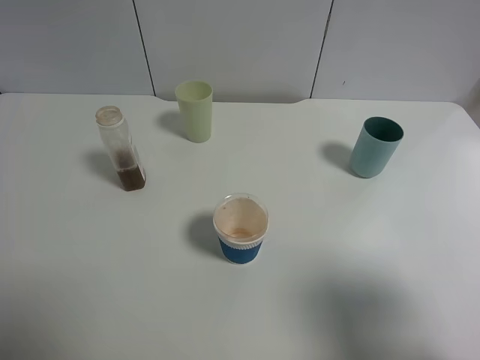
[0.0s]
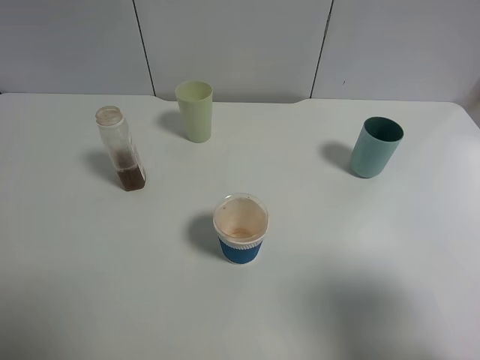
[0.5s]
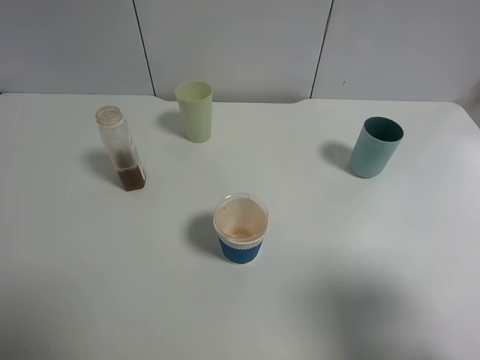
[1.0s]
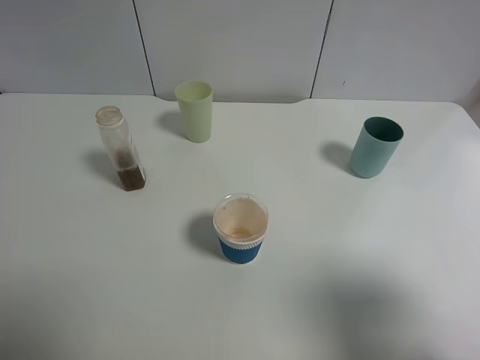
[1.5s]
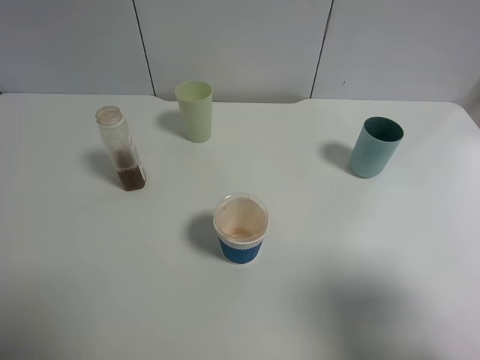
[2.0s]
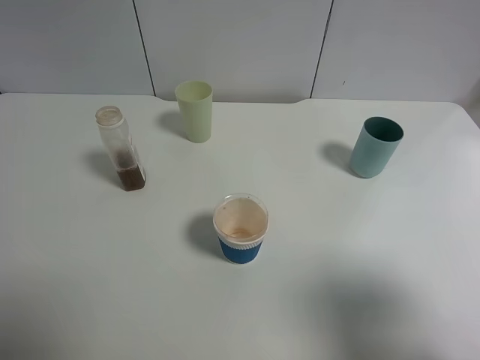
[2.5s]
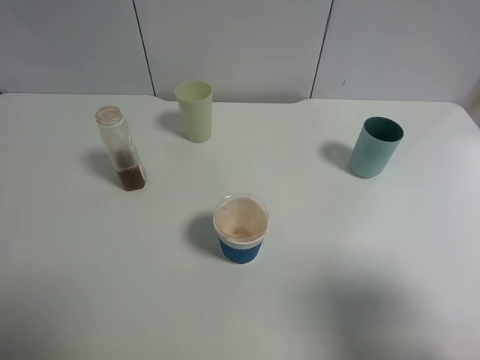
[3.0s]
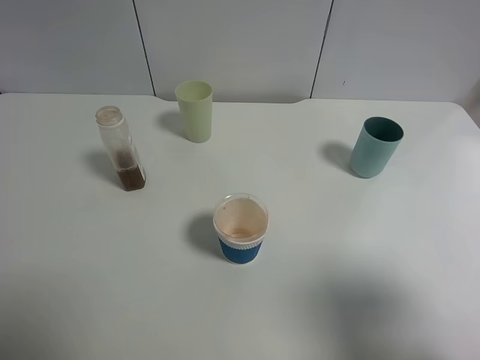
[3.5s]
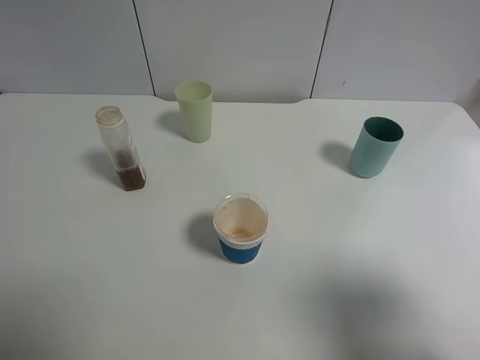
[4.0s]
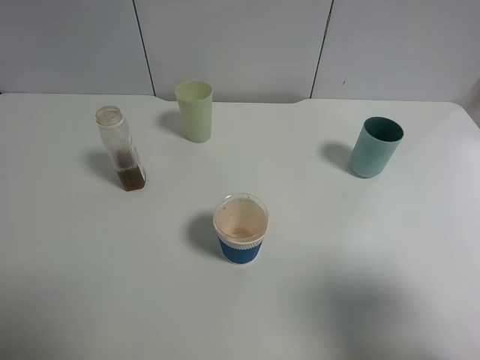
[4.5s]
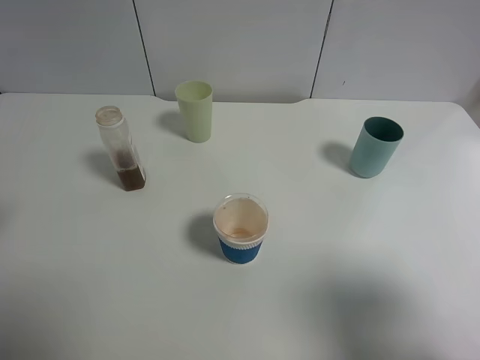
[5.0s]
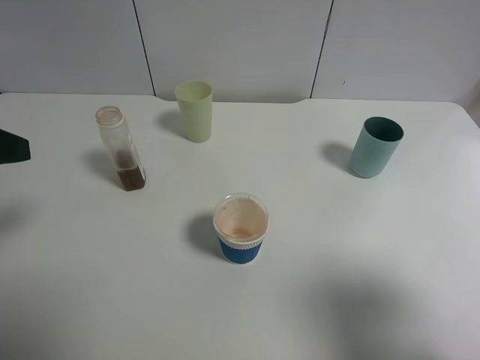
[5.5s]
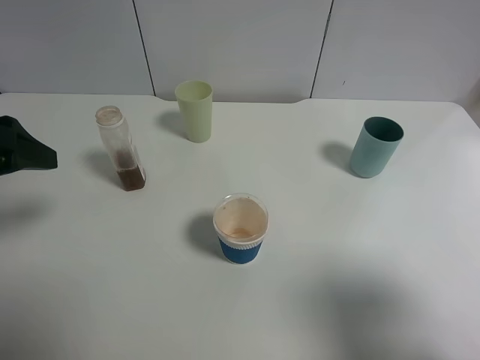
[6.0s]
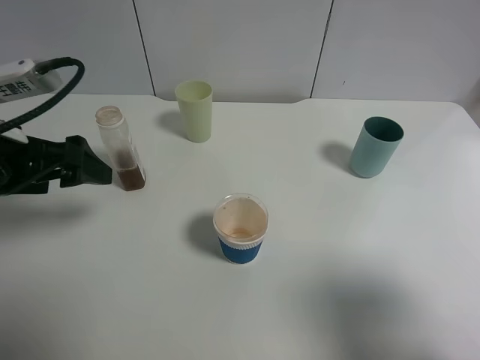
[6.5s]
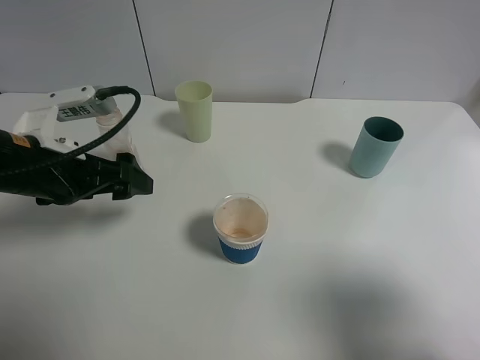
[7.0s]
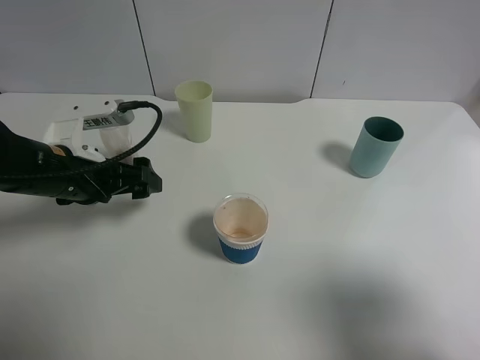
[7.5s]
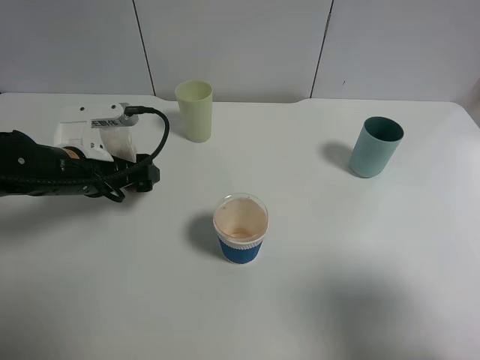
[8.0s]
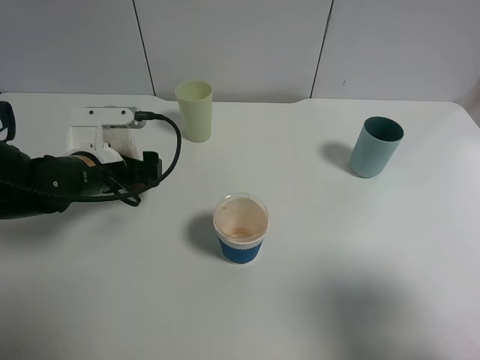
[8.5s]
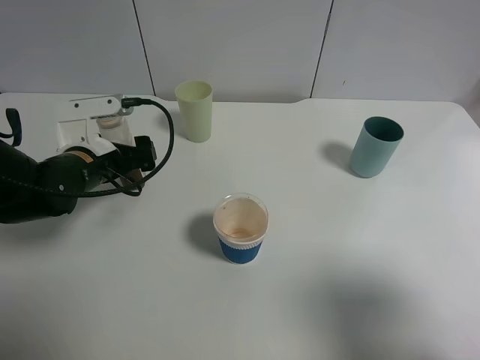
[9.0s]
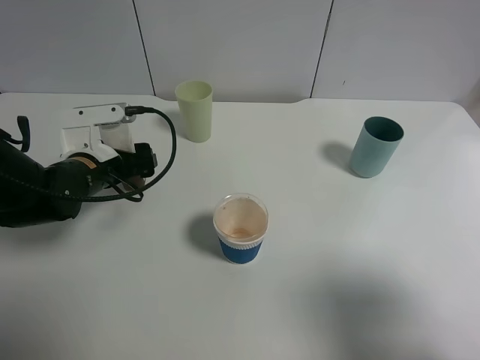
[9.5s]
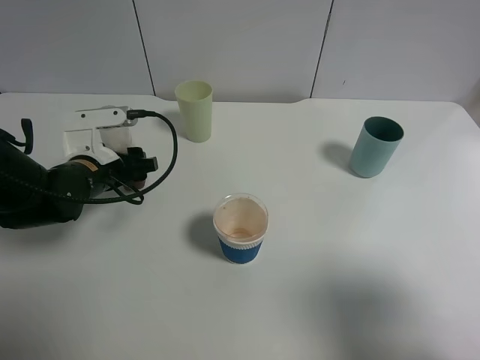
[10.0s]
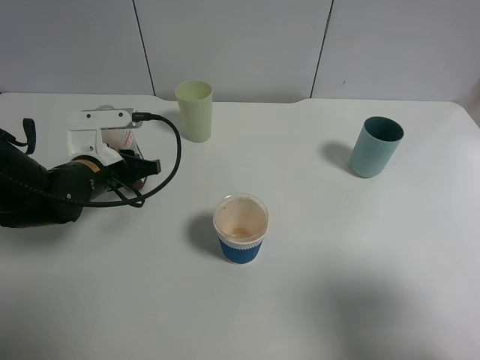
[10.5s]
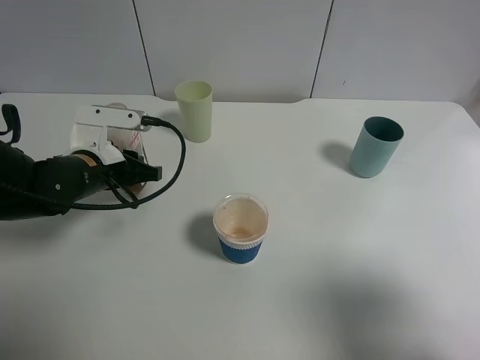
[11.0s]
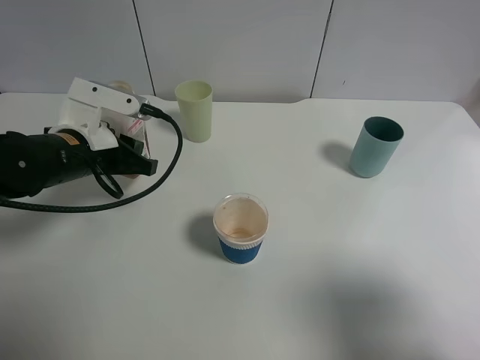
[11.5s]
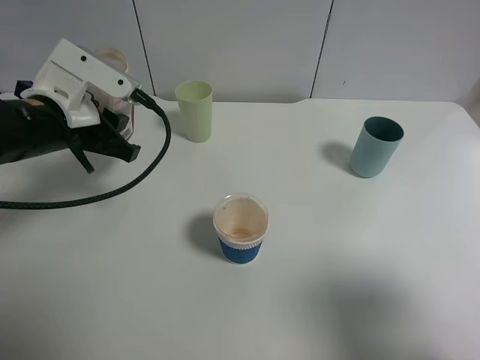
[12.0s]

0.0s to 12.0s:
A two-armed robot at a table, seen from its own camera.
Task of the whole recording: use a gripper to hold the bottle of the drink and pour it into a random cup.
Step, 0.0s to 10.0s: Grasp the cranberry juice bottle with the left gripper.
0.0s to 4.0s: Both grippers stay put.
4.0s to 6.0s: The left gripper heads forward, covering approximately 15 cm.
6.0s to 8.0s: The left gripper travels downward, forward and to the right by roughly 15 cm.
8.0s to 10.0s: The left gripper closes up.
10.0s to 12.0s: The left gripper goes some 10 cm upward, and closes its fingers.

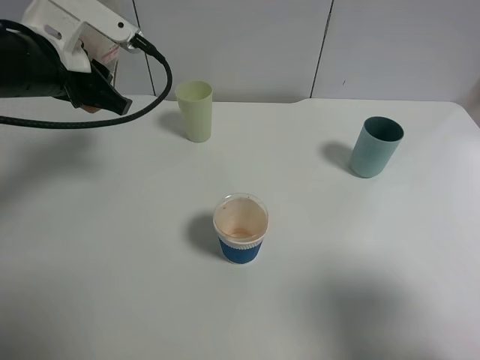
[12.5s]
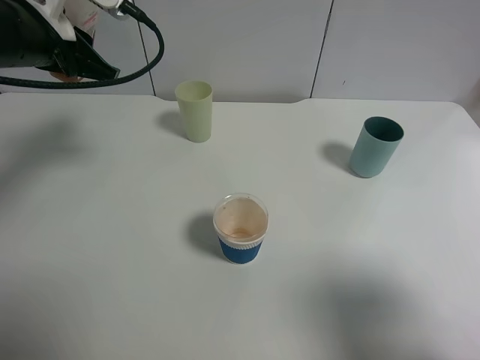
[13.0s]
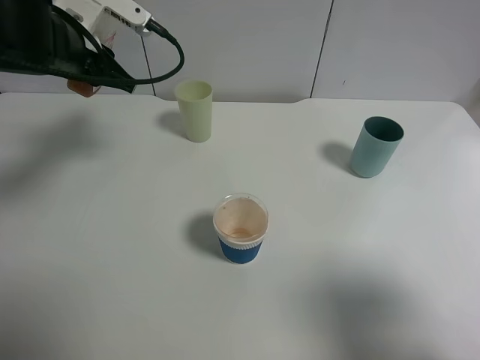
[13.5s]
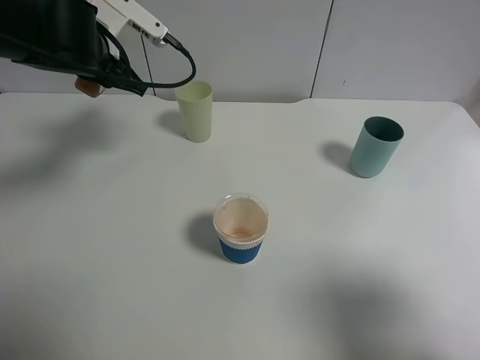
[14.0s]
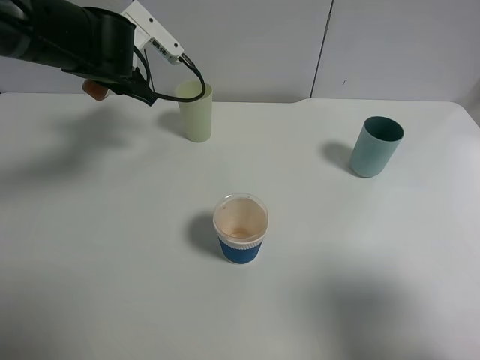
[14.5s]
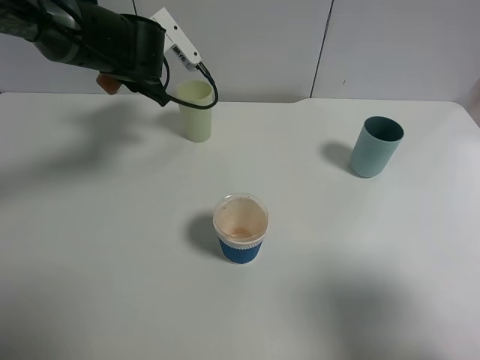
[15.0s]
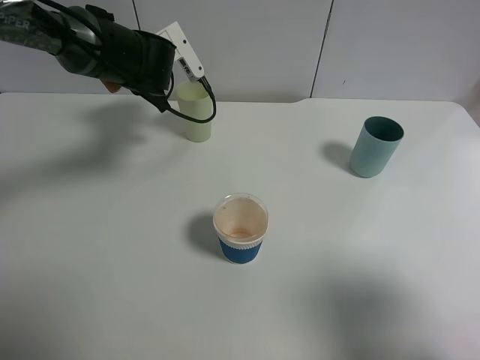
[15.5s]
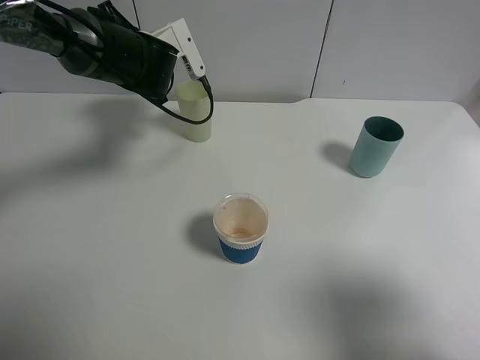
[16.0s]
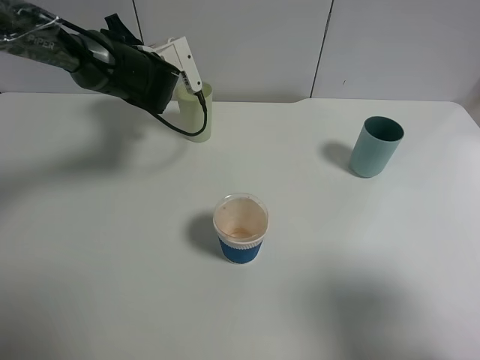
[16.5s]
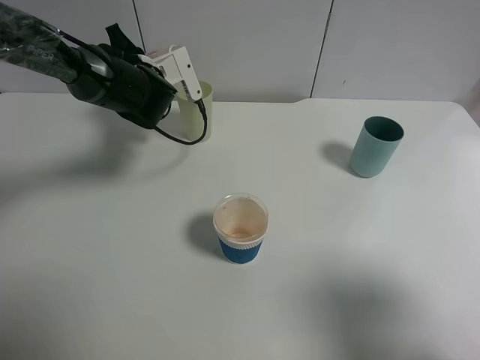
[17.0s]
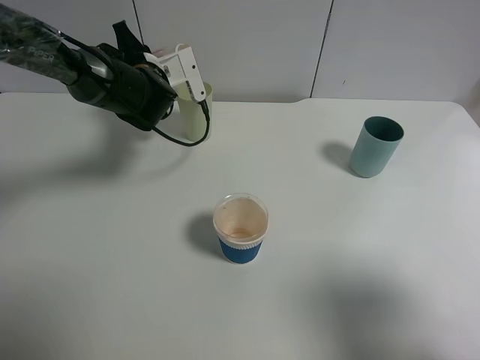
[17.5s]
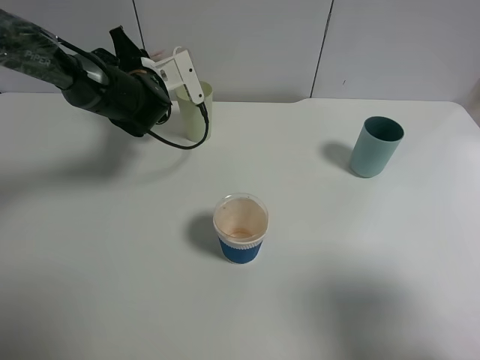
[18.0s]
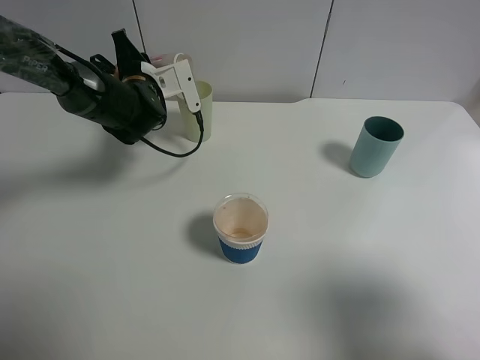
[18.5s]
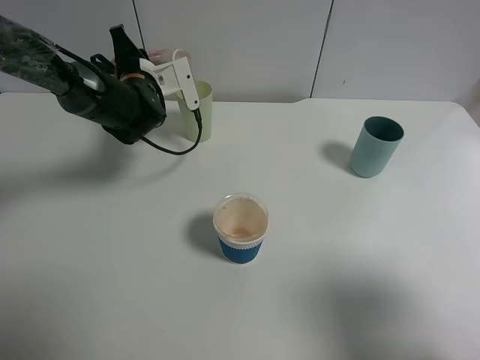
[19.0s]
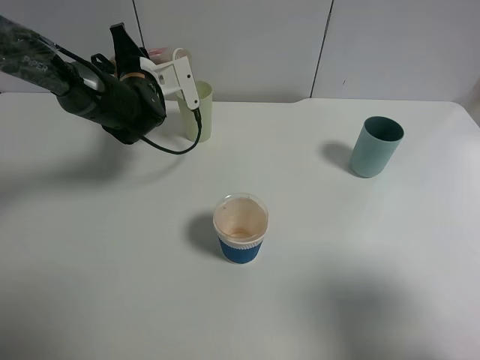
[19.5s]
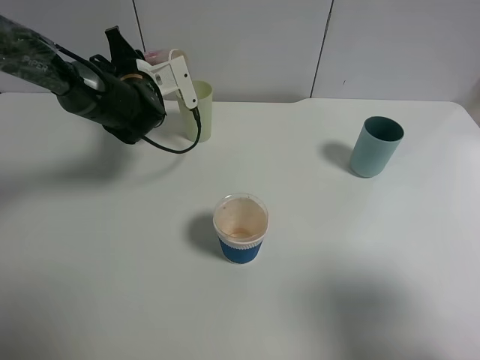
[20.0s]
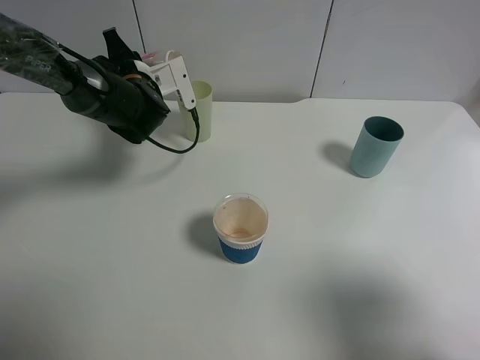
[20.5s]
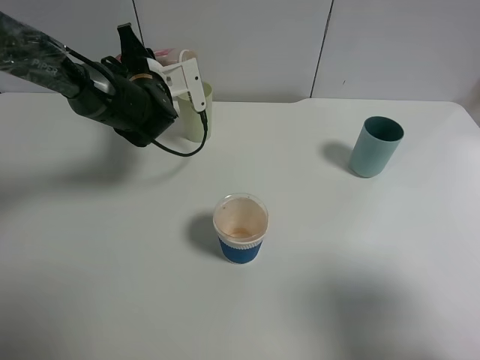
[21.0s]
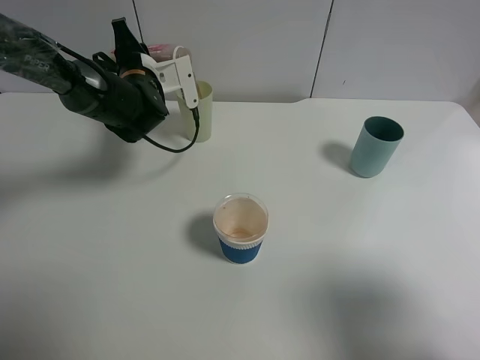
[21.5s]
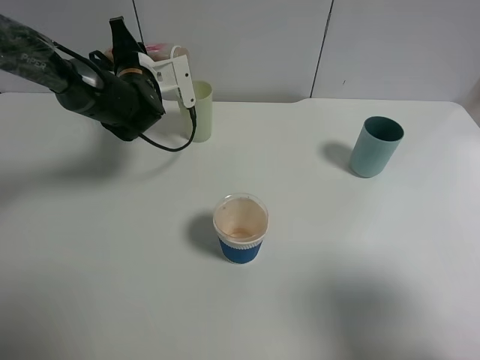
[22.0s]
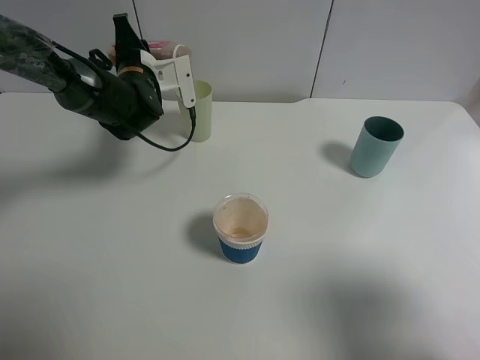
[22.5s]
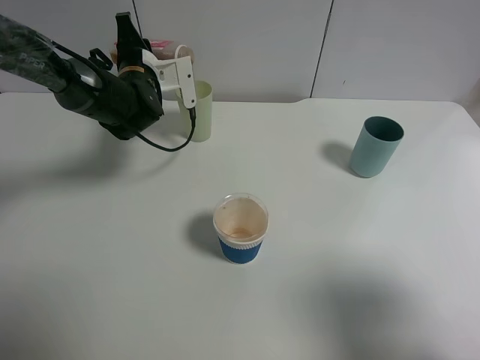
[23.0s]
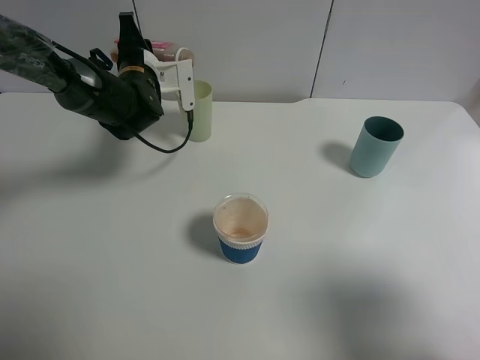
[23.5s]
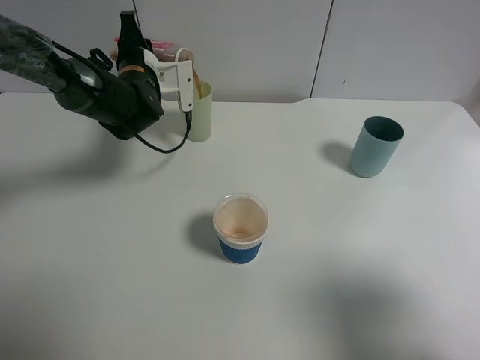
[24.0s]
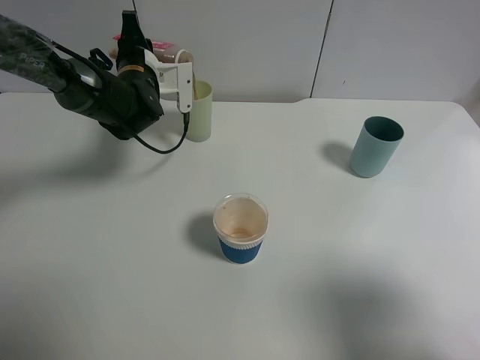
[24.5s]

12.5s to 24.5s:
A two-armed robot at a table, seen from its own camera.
Task of the whole recording: use a gripper to hold the bottle of the drink and pour it into a random cup.
12.5s to 14.5s: The left gripper moves forward, some 10 cm.
14.5s to 16.5s: The left gripper ends up approximately 5 cm from where it was.
16.5s to 20.5s: The grippers move only a little.
20.5s to 24.5s: The grippers stay close to where they were, moving slightly.

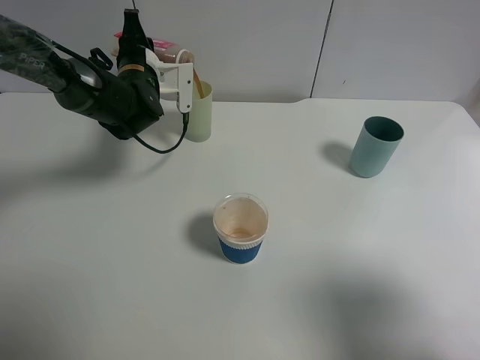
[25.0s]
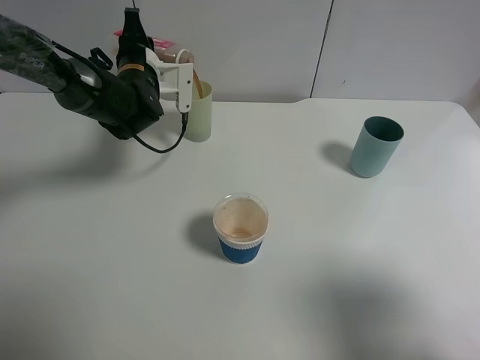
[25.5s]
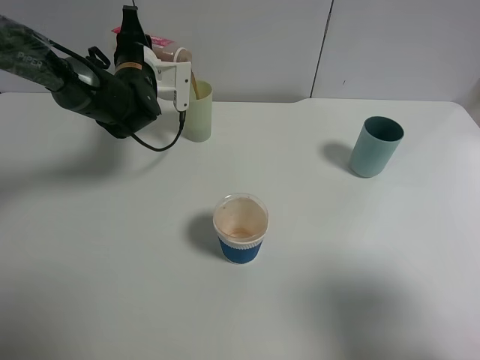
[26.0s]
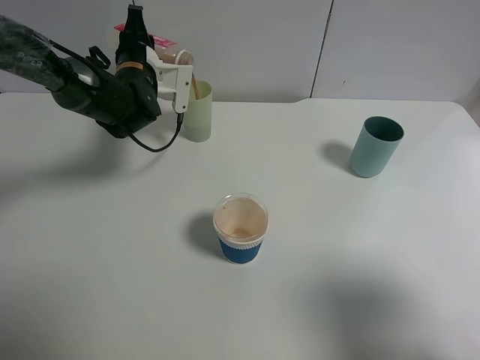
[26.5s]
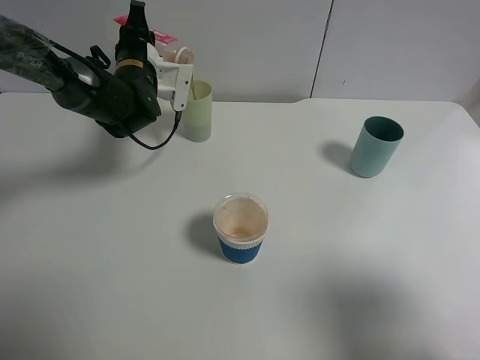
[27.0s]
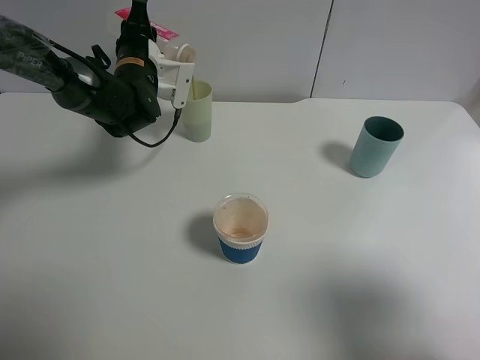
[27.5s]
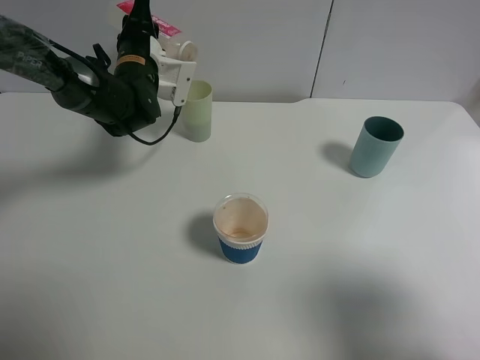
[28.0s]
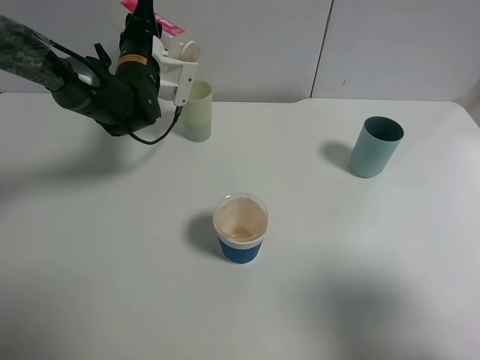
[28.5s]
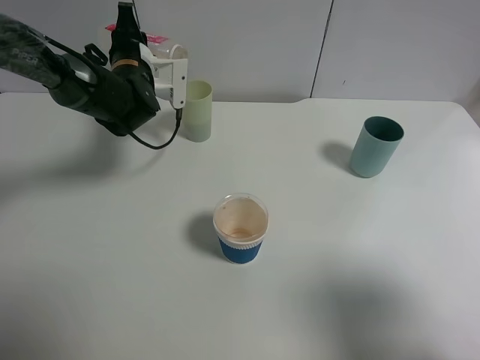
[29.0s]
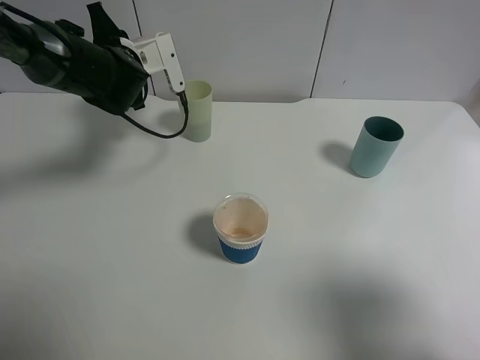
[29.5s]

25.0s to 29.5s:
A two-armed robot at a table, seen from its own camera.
Task of the whole recording: use a gripper to hold the bottle of the drink and pour it into a random cup.
Step, 25.0s to 28.5s: Pour the cranberry juice into the White Plastic Cup with the left gripper.
25.0s to 27.0s: The grippers stay close to where they were, moving slightly.
